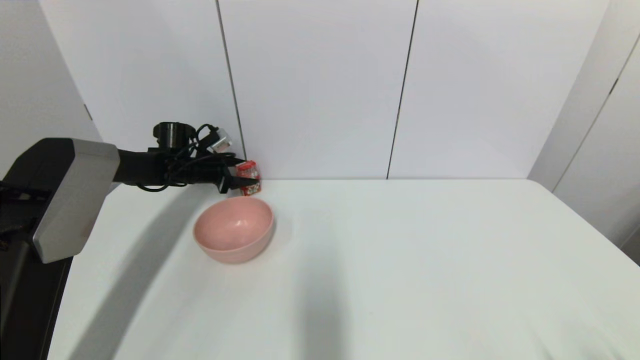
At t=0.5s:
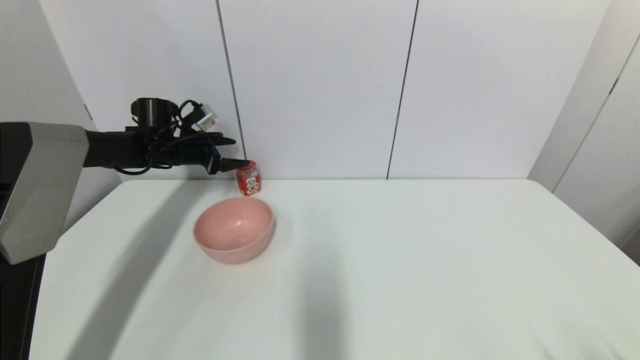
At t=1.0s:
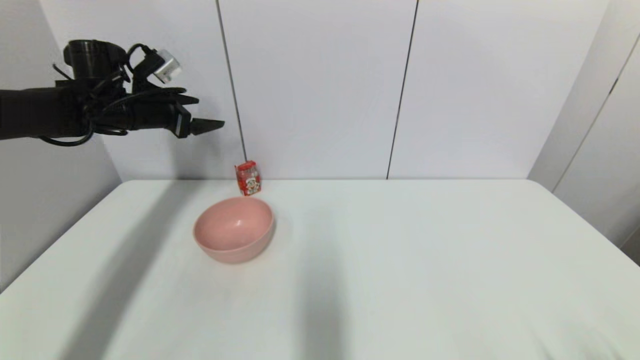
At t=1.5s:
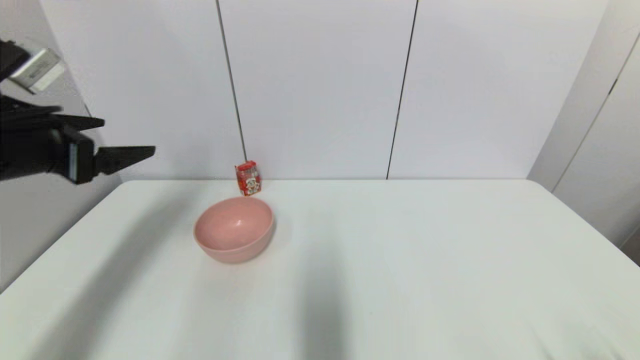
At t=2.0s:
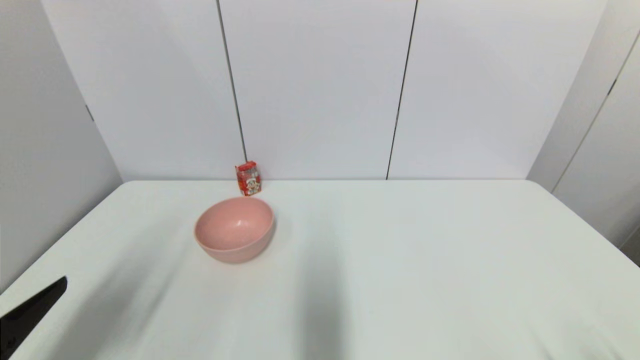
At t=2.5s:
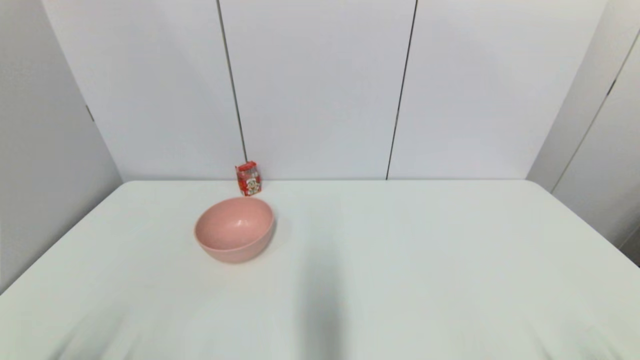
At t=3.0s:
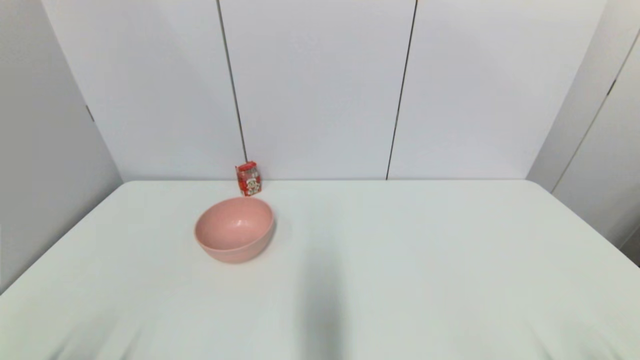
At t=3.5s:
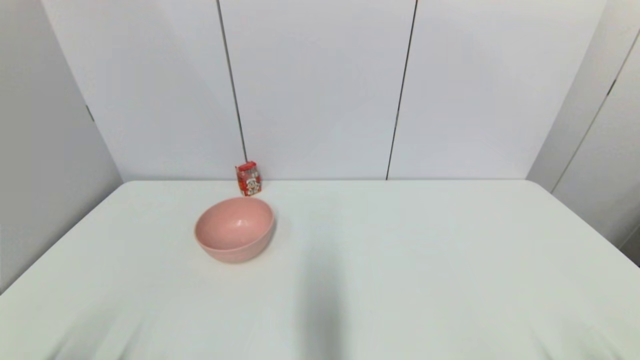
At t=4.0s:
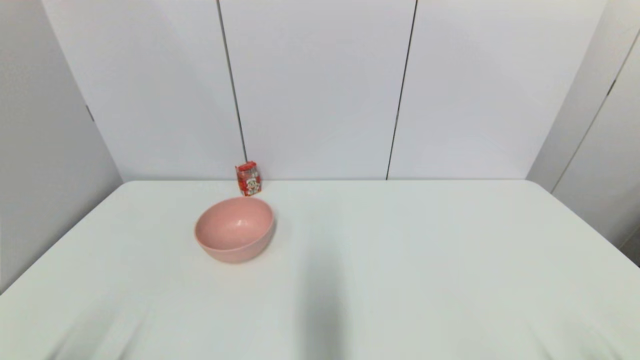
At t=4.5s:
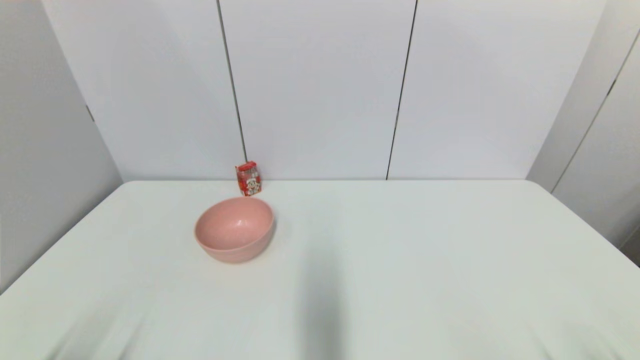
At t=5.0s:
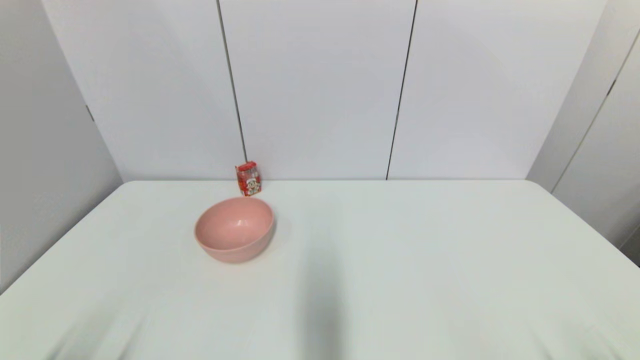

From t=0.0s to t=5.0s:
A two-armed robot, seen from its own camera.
From t=0.0s to t=2.5s: The left gripper travels backward by some 50 cm.
